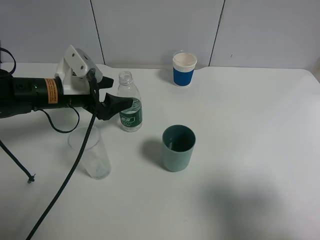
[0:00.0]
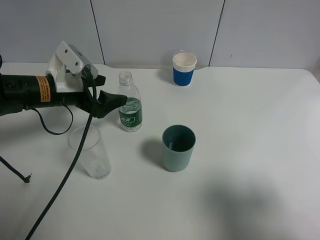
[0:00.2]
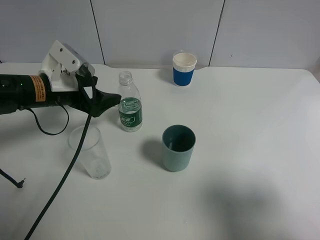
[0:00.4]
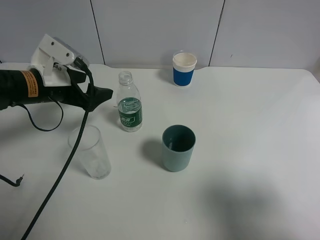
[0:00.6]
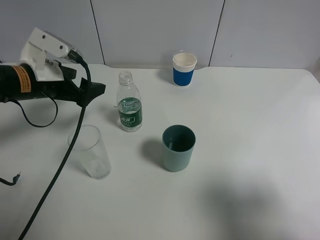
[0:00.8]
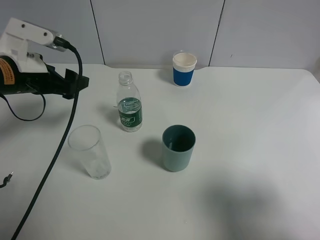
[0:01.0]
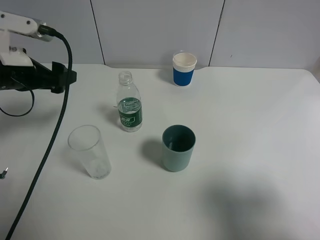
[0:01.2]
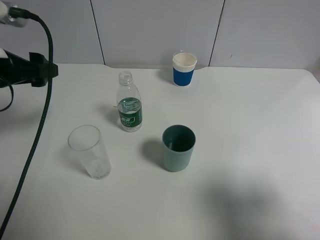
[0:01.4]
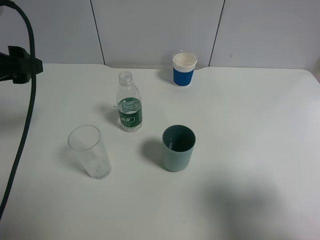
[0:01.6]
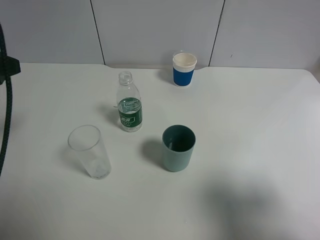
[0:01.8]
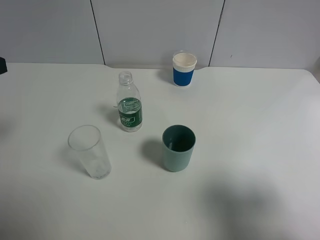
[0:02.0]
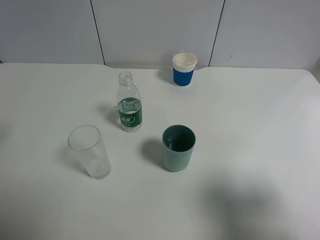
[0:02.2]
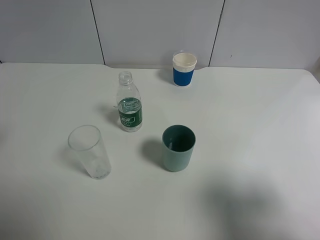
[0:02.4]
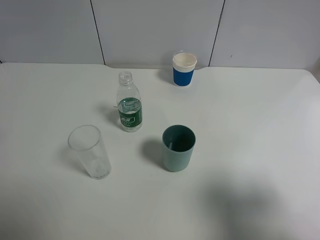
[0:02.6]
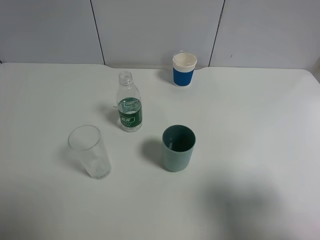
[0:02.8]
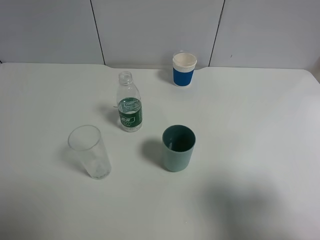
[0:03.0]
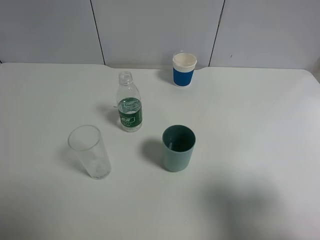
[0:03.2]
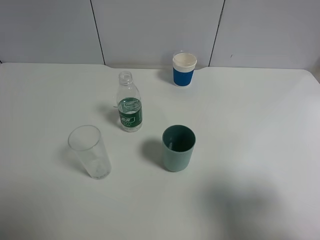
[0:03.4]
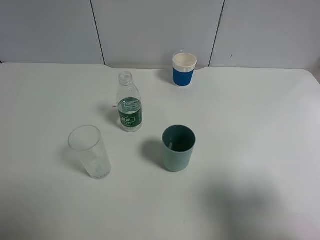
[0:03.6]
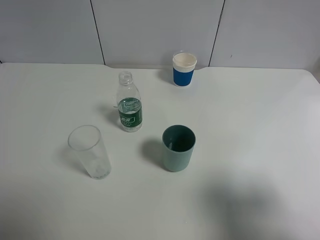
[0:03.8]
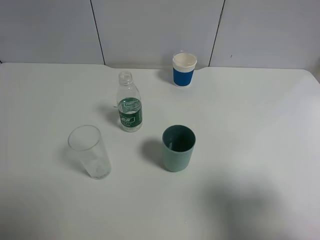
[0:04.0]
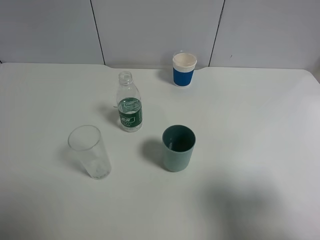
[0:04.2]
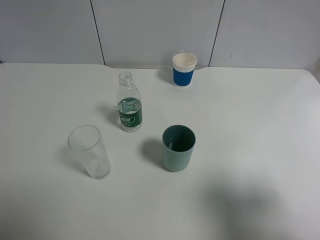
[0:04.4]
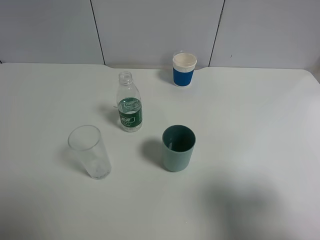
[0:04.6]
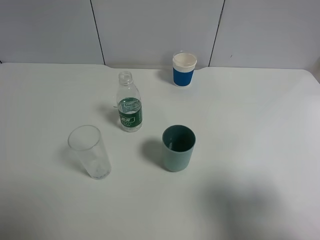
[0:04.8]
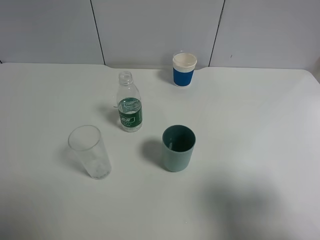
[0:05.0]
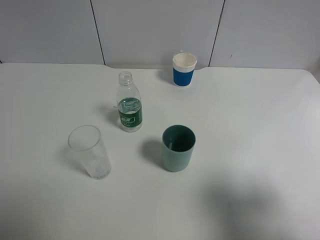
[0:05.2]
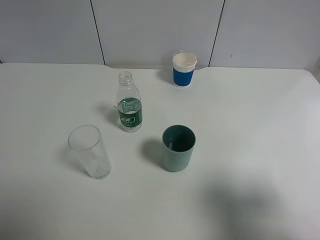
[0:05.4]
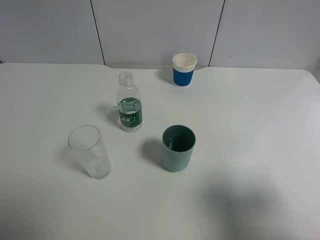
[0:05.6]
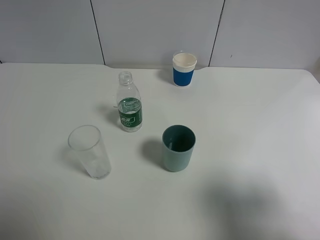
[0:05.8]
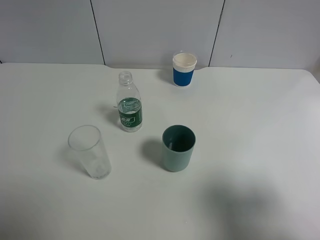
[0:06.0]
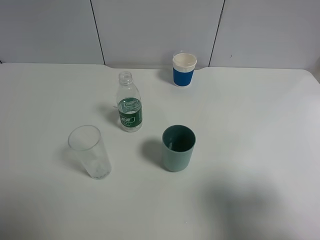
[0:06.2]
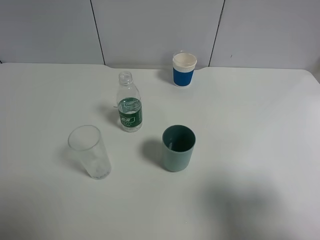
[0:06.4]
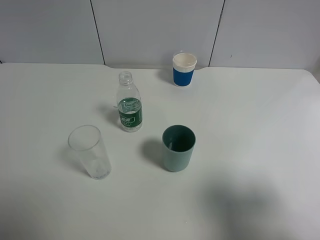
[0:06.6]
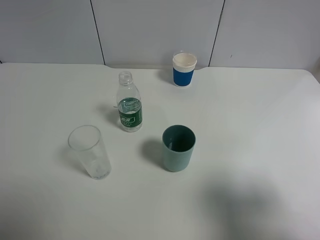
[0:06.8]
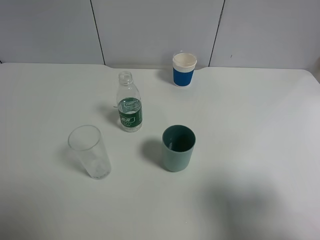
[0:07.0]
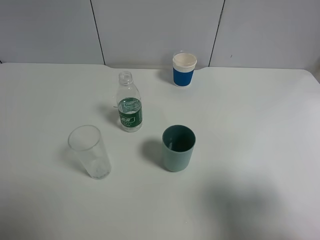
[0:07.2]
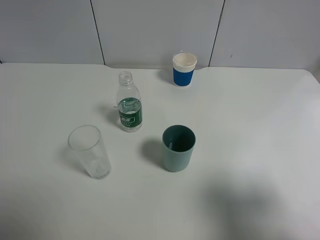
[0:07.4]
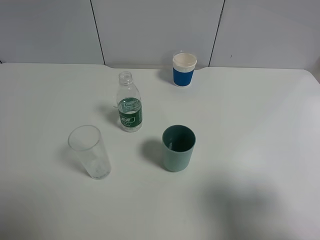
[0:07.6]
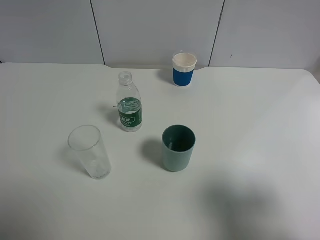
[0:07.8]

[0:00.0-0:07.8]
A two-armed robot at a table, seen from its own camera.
Task of the whole recording: use a gripper to hold the bottle of the drink and pour it into a random cup.
0:00.0 to 0:01.6: The left gripper heads upward, to the left and backward, covering approximately 15 cm.
0:01.6 to 0:03.2: The left gripper moves backward, some 15 cm.
0:06.2 to 0:07.8: Both grippers stay about where they are.

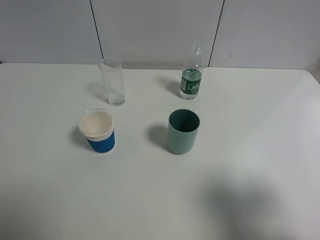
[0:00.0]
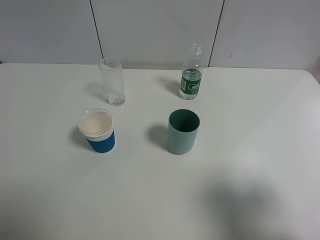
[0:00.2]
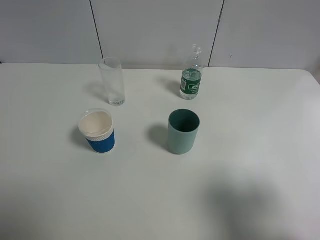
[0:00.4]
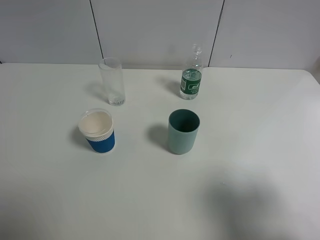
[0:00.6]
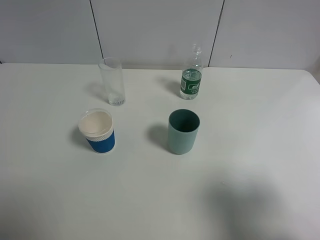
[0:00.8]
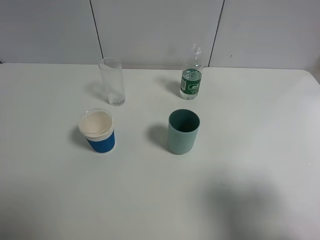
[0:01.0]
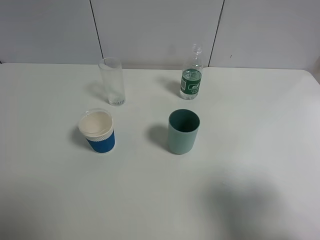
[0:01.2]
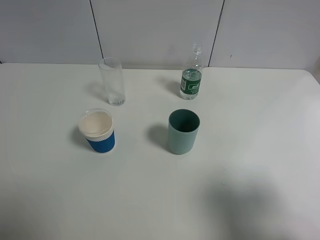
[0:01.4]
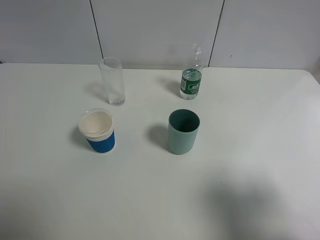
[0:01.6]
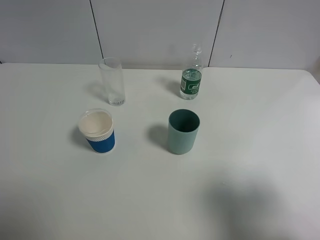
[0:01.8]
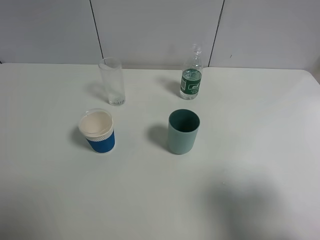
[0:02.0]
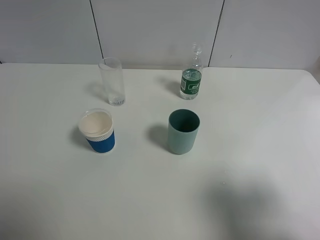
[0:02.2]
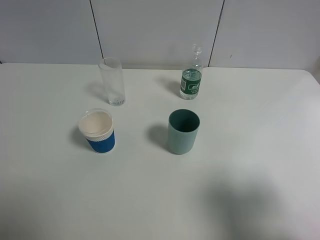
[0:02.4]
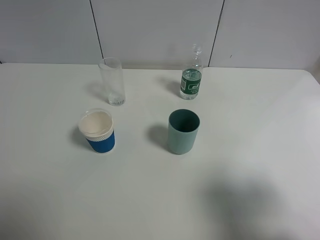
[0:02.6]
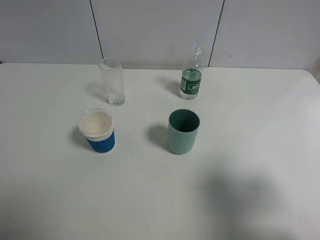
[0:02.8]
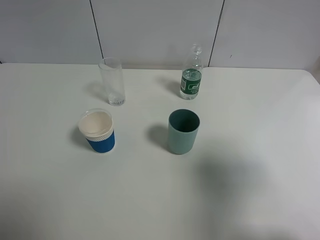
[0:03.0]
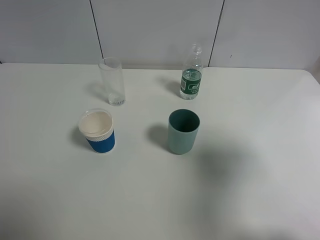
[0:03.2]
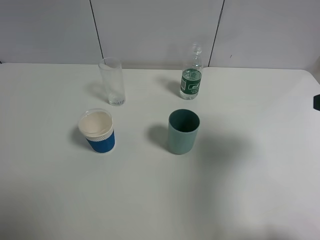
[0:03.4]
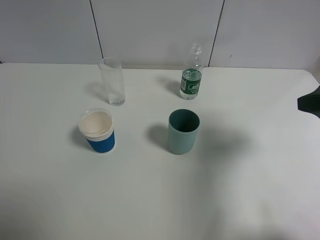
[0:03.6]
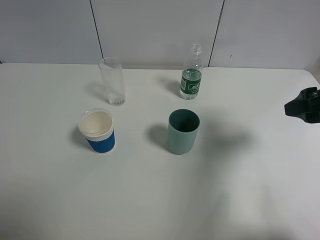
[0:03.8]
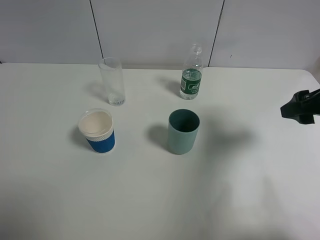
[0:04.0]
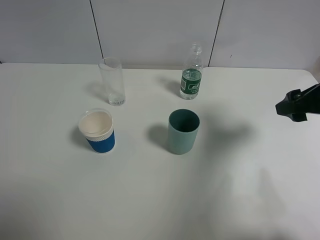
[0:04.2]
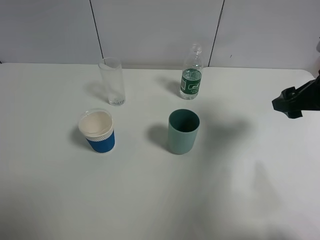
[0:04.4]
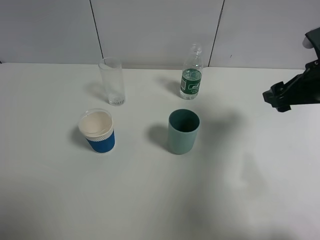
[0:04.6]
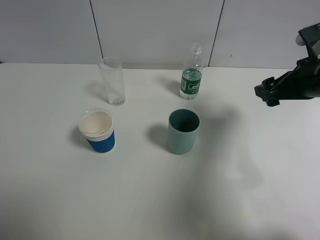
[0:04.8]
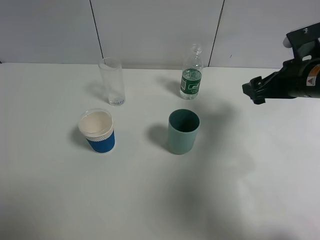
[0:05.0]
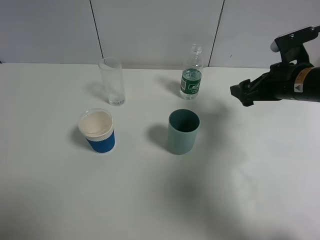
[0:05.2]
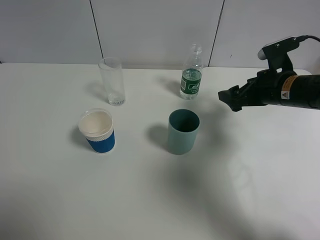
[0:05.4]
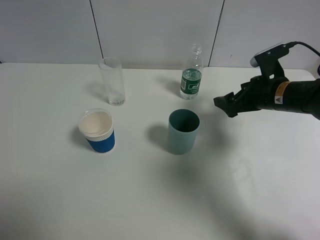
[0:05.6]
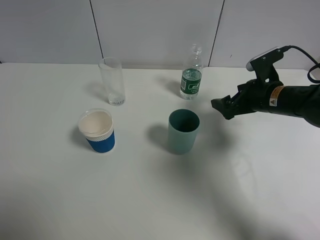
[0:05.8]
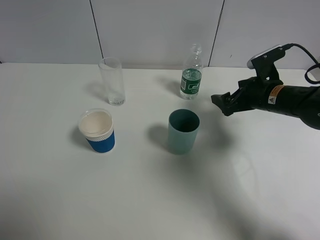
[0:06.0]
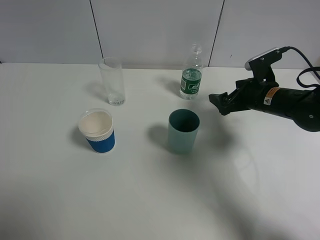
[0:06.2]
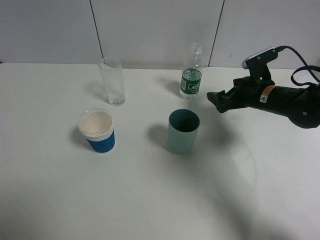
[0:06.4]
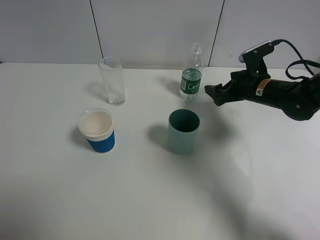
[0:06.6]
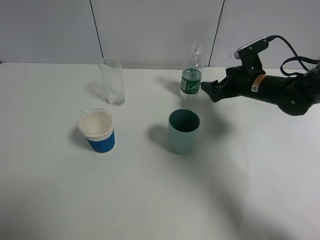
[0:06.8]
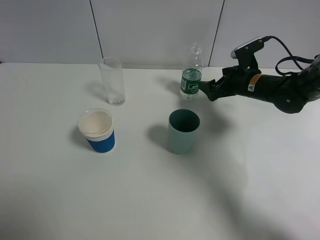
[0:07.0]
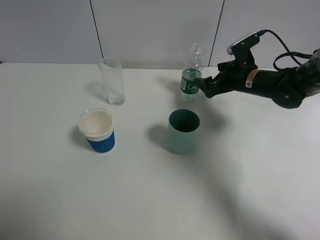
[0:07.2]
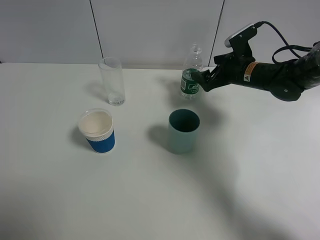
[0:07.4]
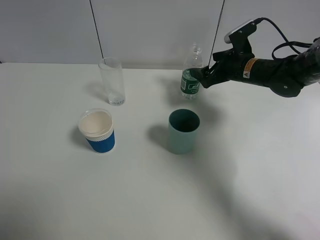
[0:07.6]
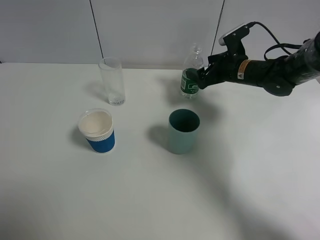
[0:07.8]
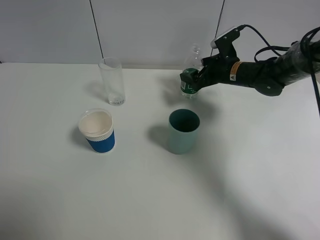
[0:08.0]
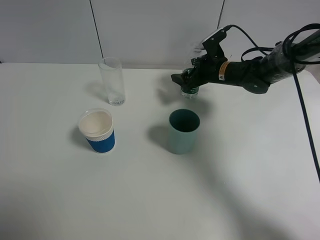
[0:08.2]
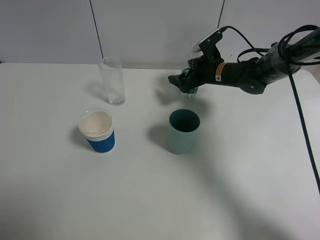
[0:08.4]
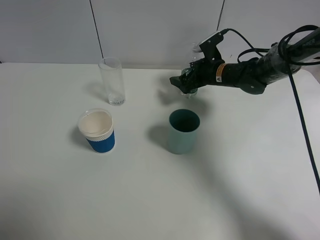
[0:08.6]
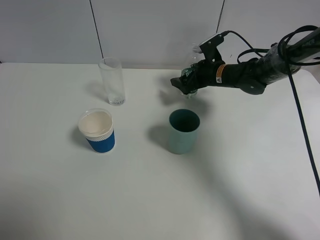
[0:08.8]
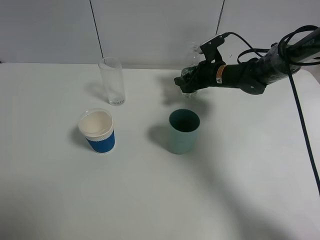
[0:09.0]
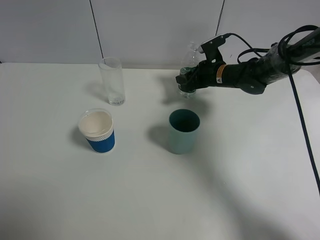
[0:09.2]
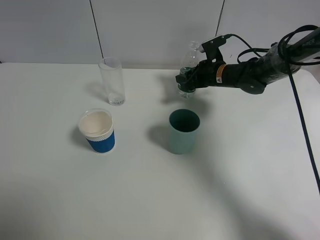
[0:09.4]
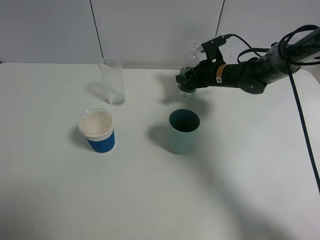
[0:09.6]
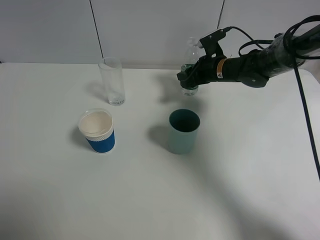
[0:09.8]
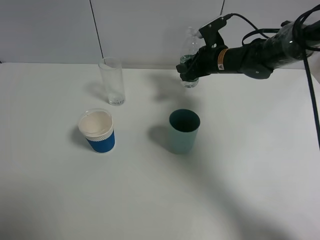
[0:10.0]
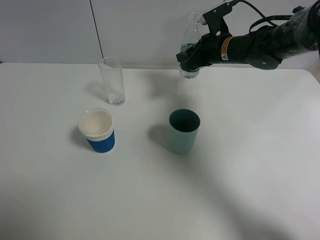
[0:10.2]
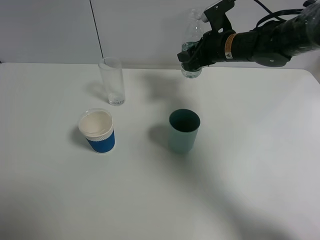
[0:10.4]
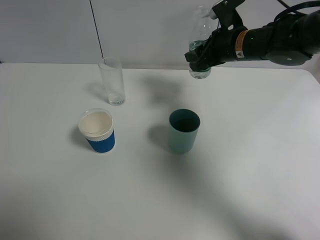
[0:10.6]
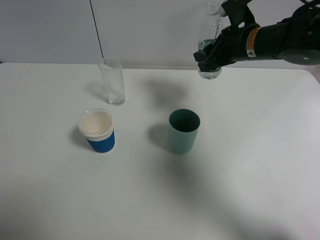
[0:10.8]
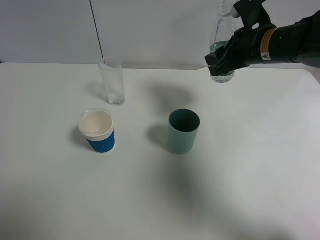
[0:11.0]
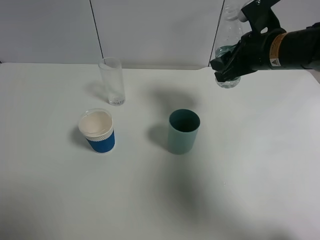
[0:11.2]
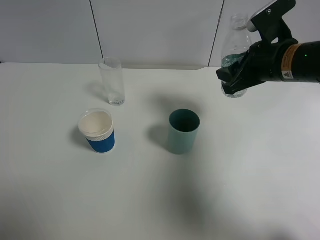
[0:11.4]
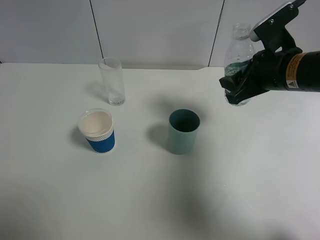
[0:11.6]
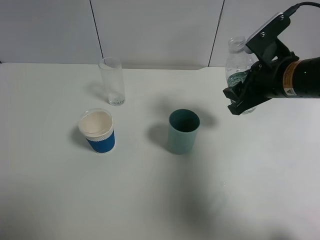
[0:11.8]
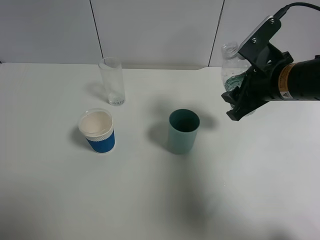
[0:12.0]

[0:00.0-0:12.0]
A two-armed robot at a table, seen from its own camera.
Task of the whole recording: use a gripper to hold the bottle of the drink and pour it into a random cup.
Step, 0:00.0 to 0:09.6: Grasp the mineral water bottle with the right gripper.
0:00.0 to 0:01.6: Neither gripper changes place.
0:01.6 to 0:03.0: The right gripper shifts about 5 cm forward.
0:03.0 to 0:04.4: The right gripper heads forward and downward, covering approximately 15 cm.
0:04.4 to 0:06.0: The right gripper moves downward and forward, roughly 15 cm.
0:06.0 to 0:07.6: The right gripper is displaced forward by about 10 cm.
0:07.6 to 0:09.0: The right gripper shifts by approximately 5 cm, and closes up.
0:09.0 to 0:10.4: The right gripper shifts roughly 10 cm upward.
0:10.4 to 0:12.0: The right gripper heads backward, covering some 15 cm.

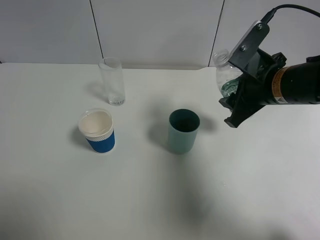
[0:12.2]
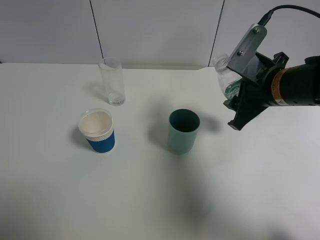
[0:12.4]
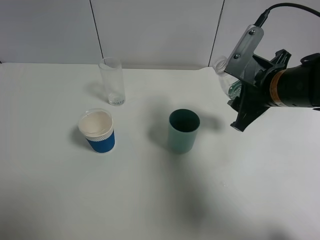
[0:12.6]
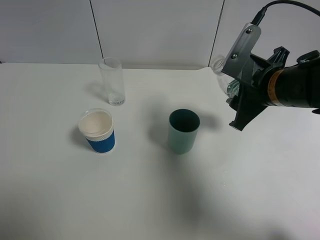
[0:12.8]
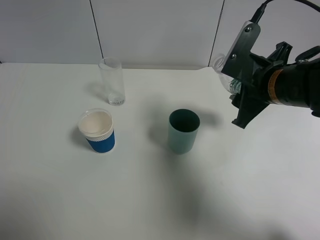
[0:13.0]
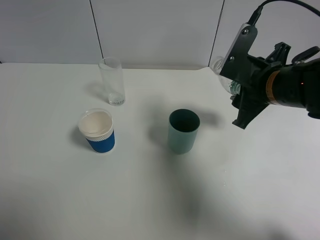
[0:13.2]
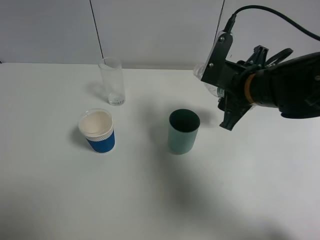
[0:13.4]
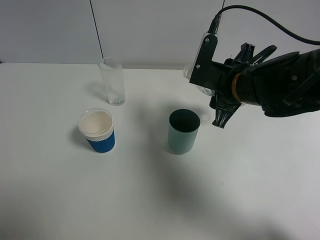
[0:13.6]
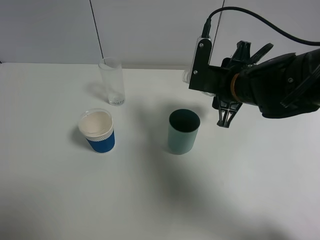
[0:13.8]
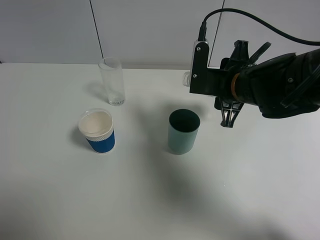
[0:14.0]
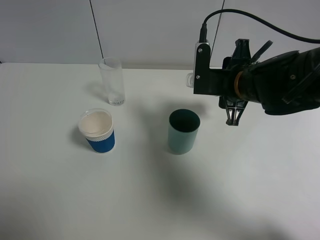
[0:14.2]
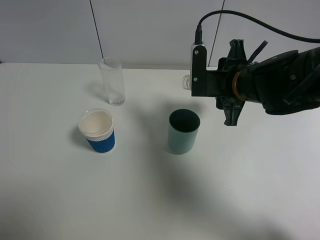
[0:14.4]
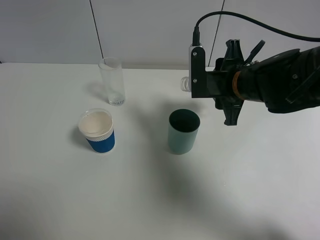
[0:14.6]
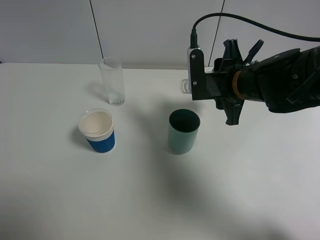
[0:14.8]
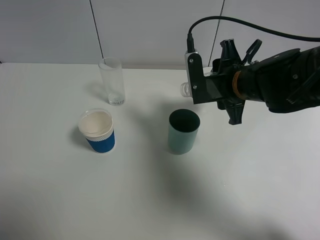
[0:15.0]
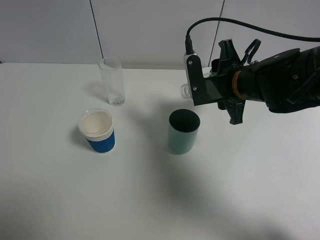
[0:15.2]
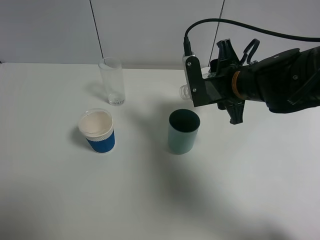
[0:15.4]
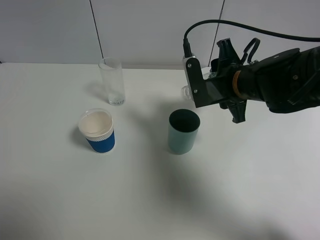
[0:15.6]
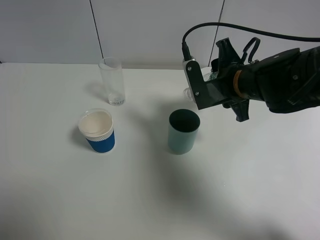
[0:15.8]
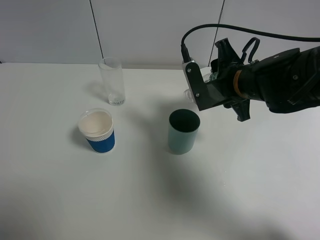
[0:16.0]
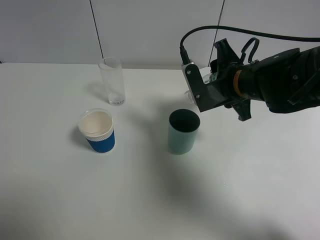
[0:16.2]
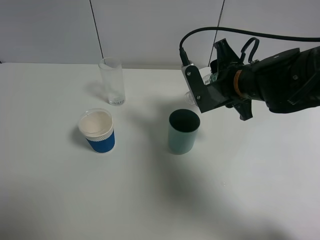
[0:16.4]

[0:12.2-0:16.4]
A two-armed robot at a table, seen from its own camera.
Task of the whole recording: use a gripper to hold the bottle of the drink and pour it into a random cup.
0:12.2 to 0:13.6: The right gripper shifts by approximately 5 cm.
0:15.0 to 0:16.4: The grippers move only a little.
